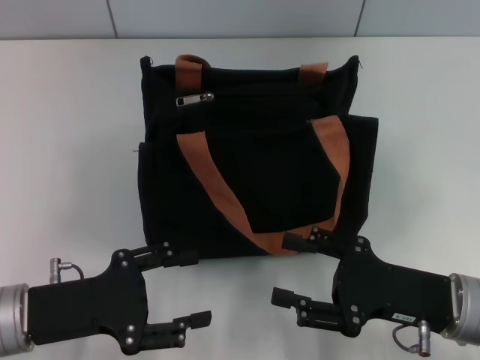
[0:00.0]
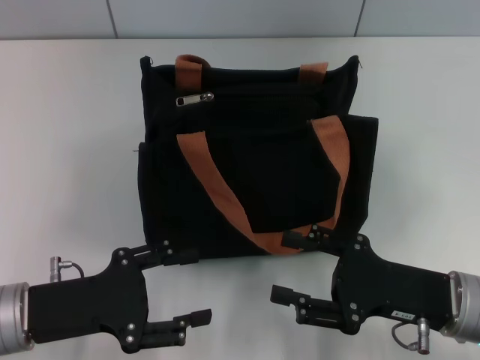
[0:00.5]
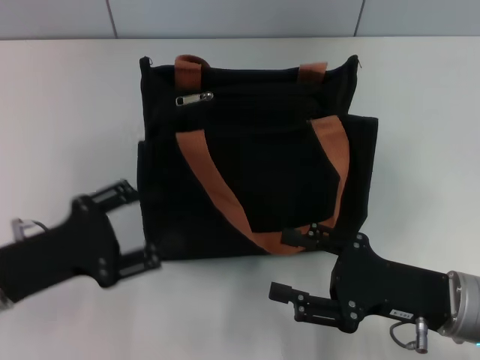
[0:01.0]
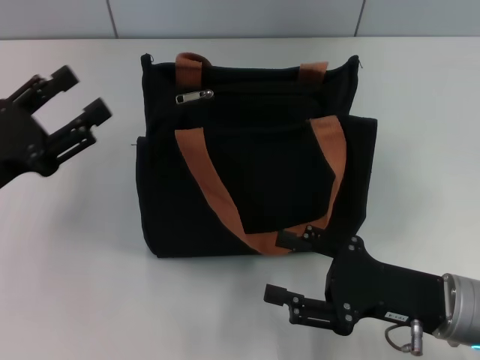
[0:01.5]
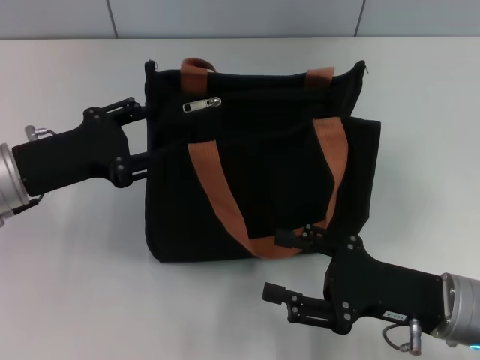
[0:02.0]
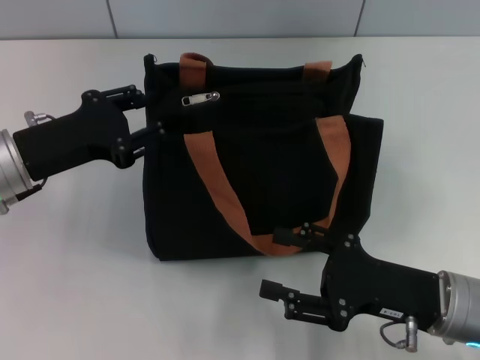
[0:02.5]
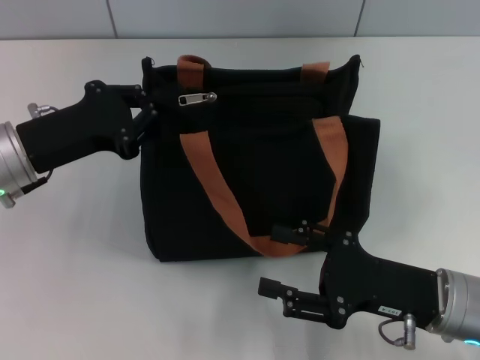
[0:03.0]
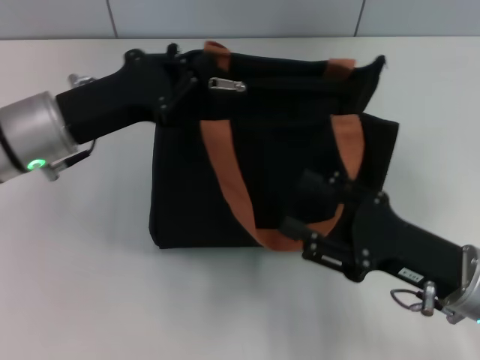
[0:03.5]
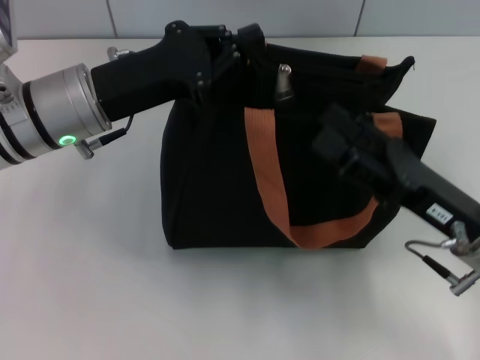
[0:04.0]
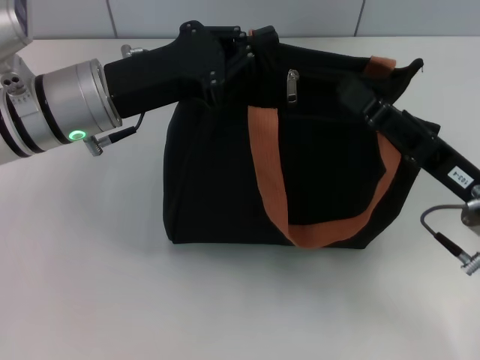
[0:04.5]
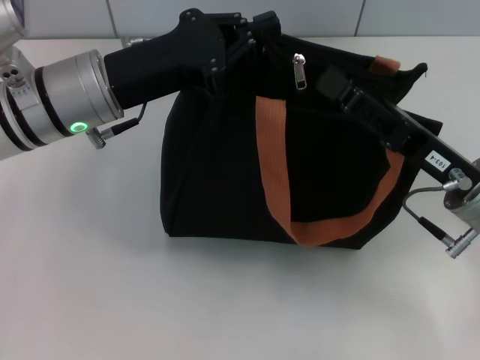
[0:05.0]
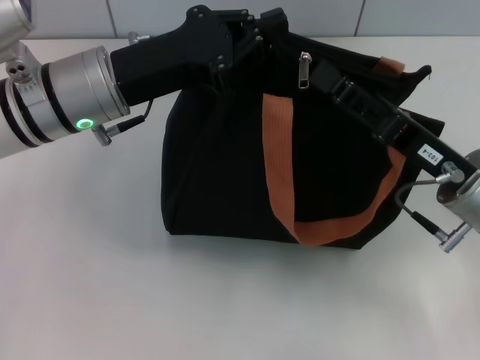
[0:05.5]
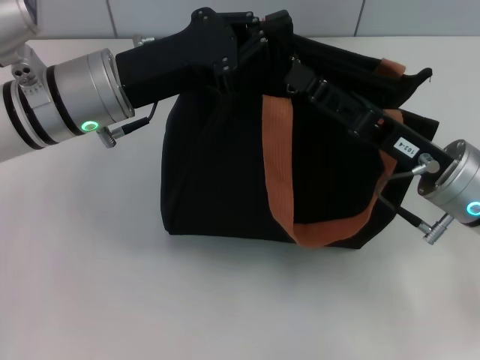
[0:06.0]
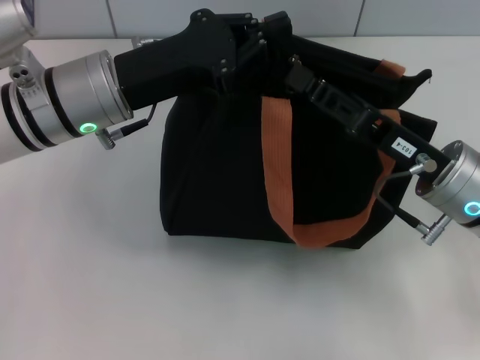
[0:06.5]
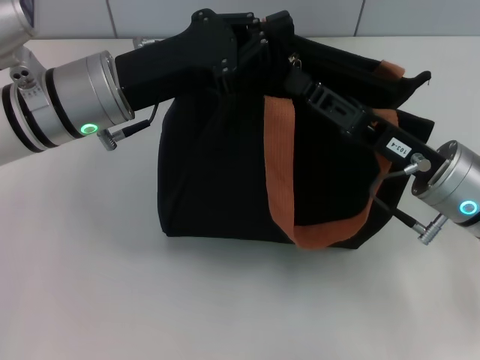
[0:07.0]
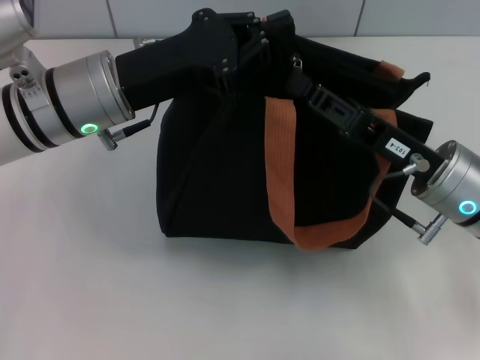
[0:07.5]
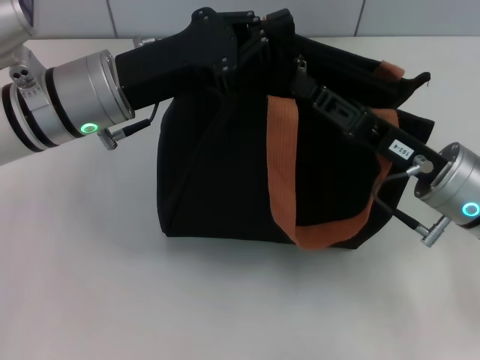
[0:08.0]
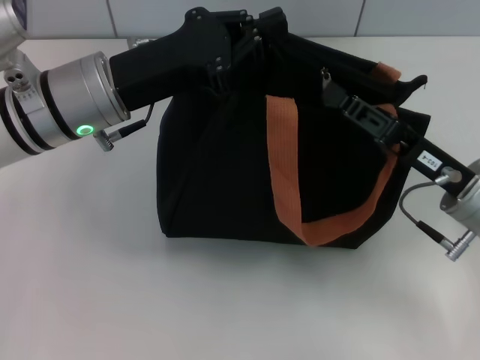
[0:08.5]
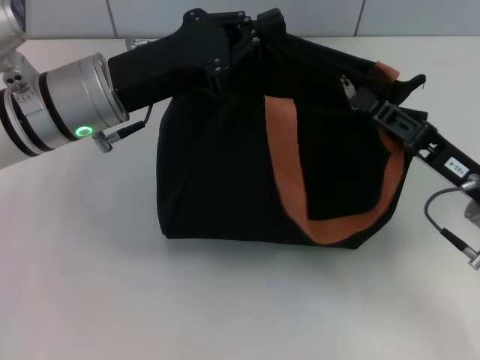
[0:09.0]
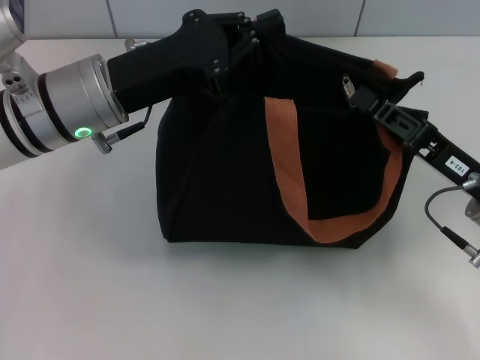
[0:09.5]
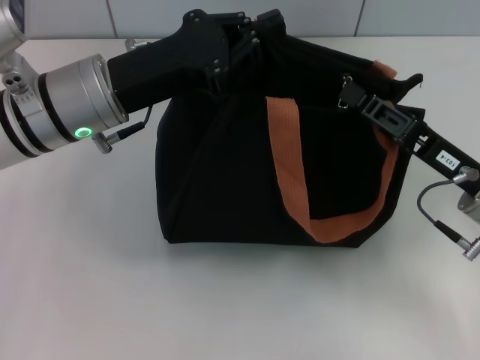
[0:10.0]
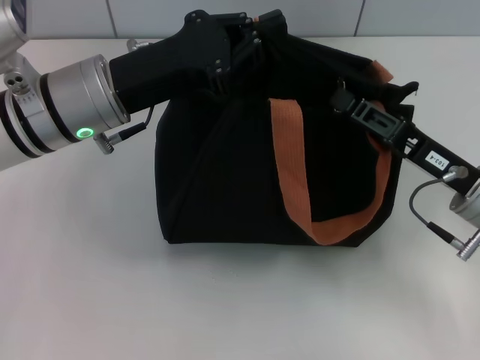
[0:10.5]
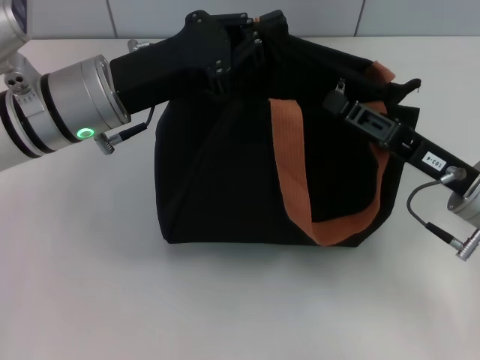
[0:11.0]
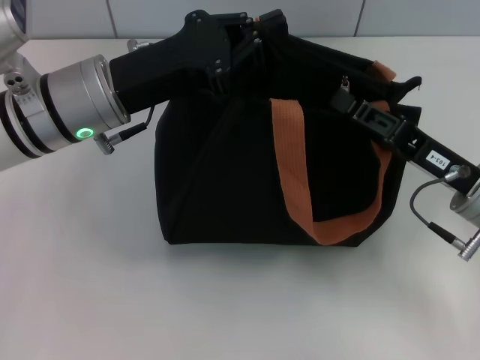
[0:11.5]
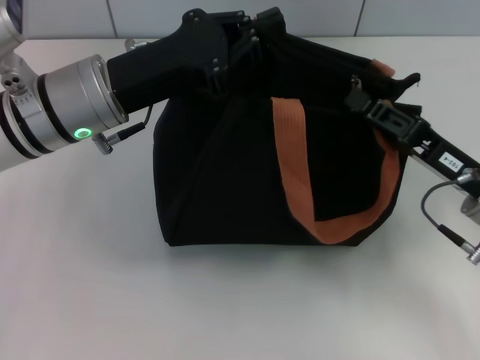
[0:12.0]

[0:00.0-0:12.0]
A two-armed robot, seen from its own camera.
0:00.0 to 0:02.0: The left gripper shifts approximately 10 cm forward.
0:02.0 to 0:04.0: The left gripper travels to the right by some 10 cm, and closes up.
0:04.0 to 0:06.0: The right gripper shifts by approximately 5 cm, and closes up.
0:06.0 to 0:08.0: The right gripper closes up.
0:08.0 to 0:10.0: The grippers move only a little.
0:10.0 to 0:12.0: Both grippers stay put.

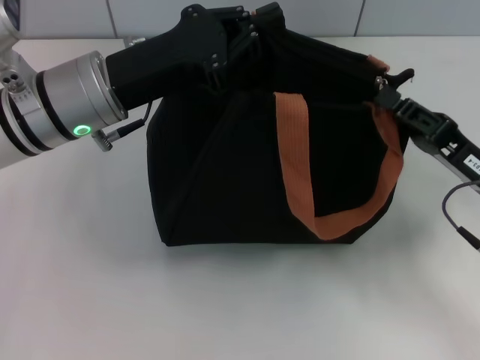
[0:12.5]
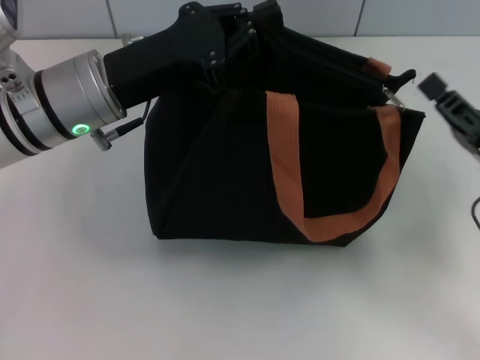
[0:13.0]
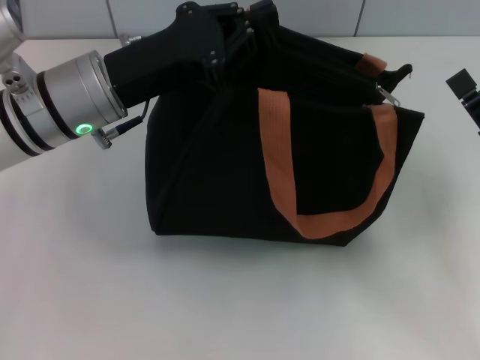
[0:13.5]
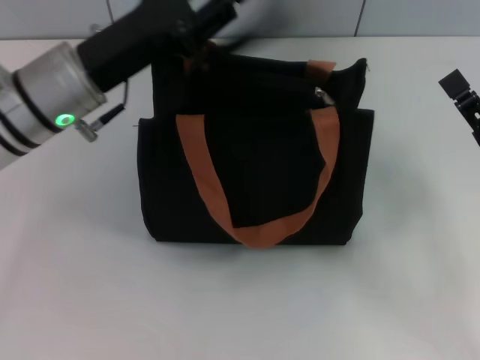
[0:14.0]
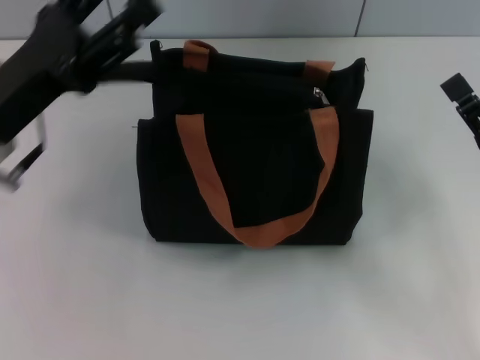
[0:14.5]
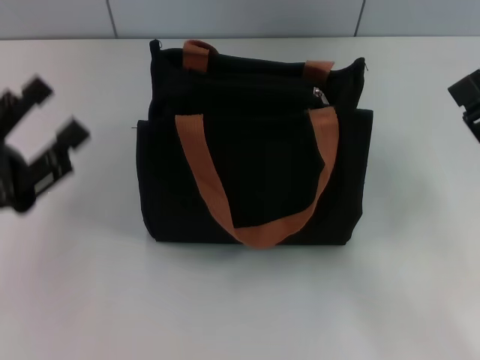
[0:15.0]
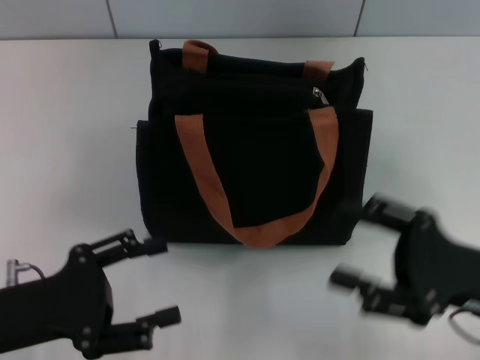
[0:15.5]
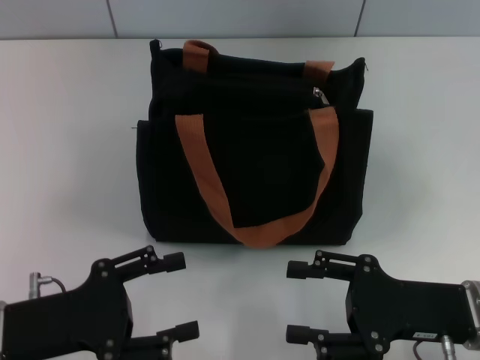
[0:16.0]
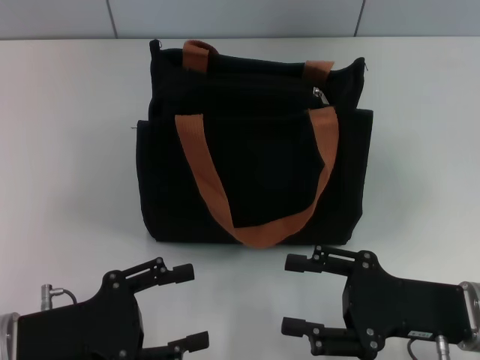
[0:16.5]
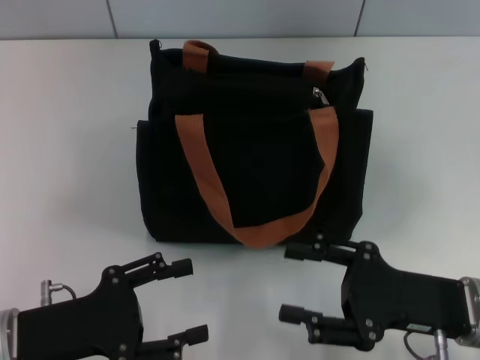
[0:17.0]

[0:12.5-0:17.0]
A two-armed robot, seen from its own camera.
Step, 0:13.5 to 0:14.5: Grab the zipper with your left hand.
0:12.5 to 0:14.5: The left gripper shifts about 10 cm to the left and backward, and opens. The right gripper opens up.
0:14.5 to 0:17.0: The right gripper heads to the left, covering roughly 5 cm, while the left gripper moves backward and downward, approximately 15 cm.

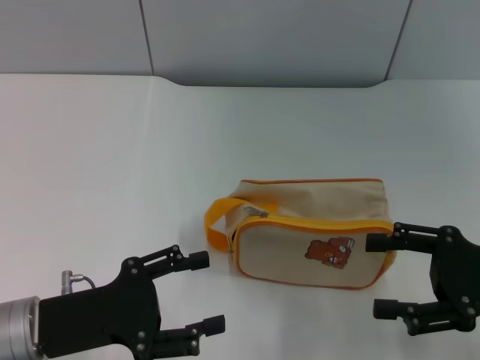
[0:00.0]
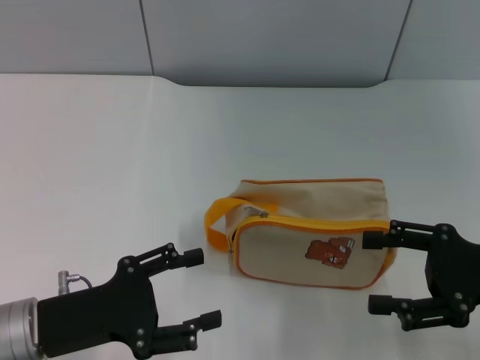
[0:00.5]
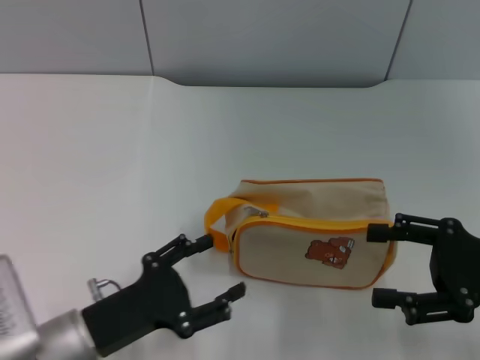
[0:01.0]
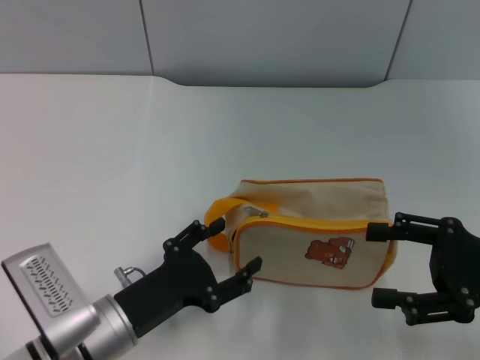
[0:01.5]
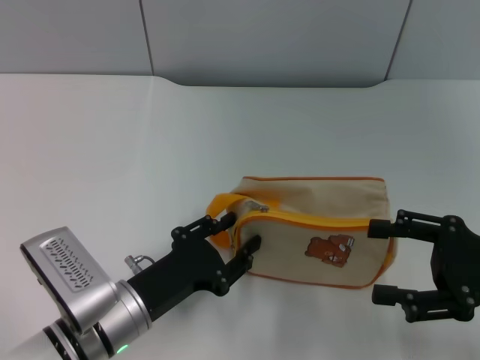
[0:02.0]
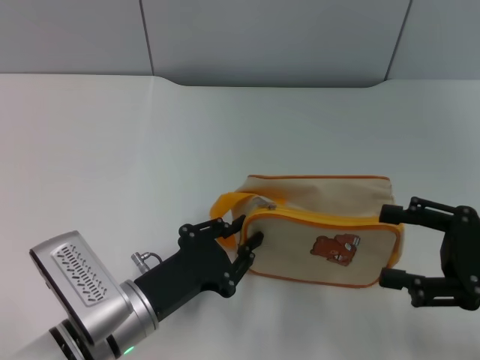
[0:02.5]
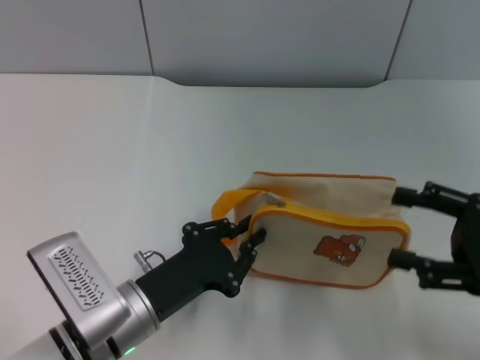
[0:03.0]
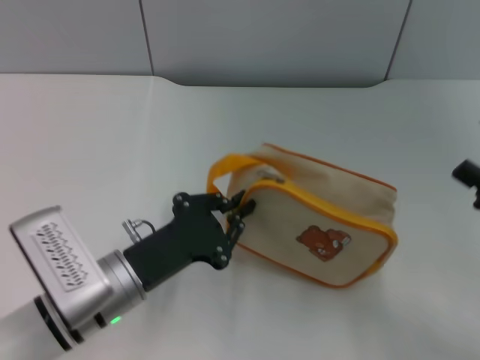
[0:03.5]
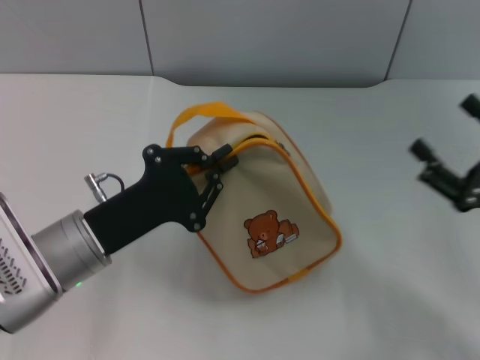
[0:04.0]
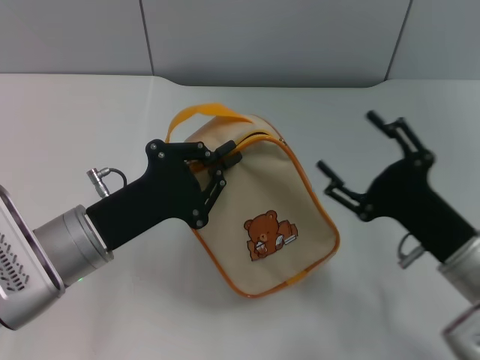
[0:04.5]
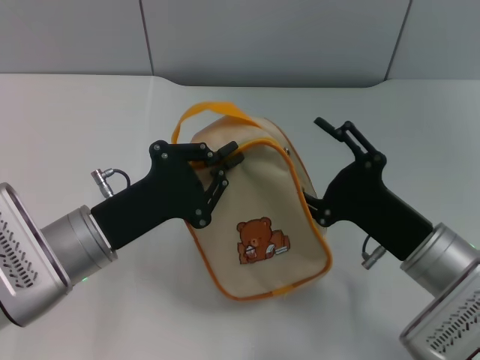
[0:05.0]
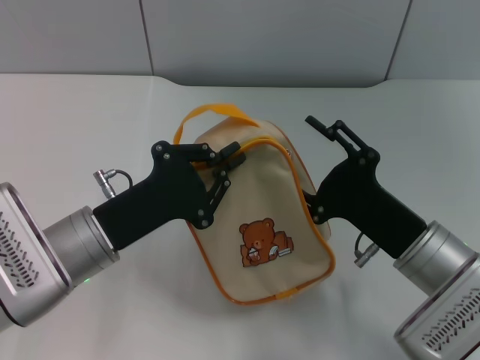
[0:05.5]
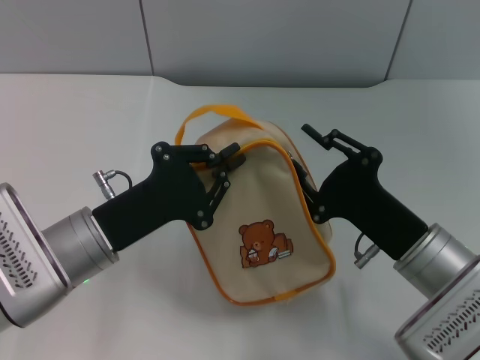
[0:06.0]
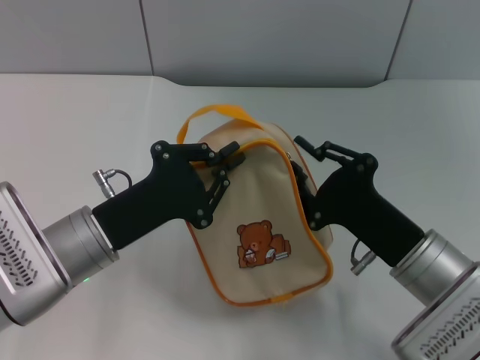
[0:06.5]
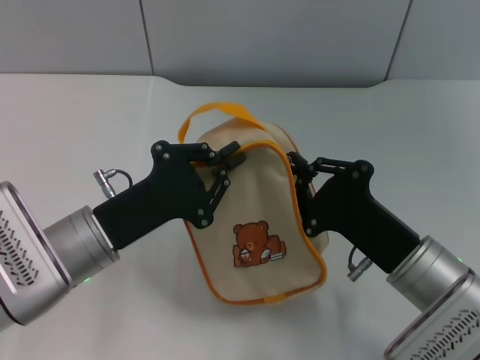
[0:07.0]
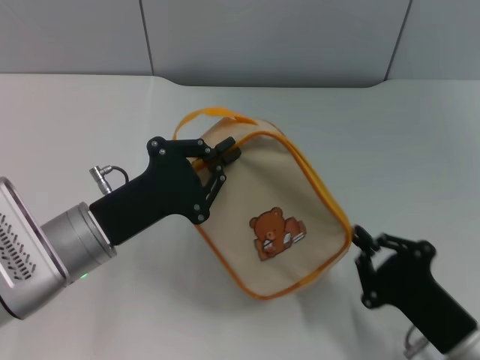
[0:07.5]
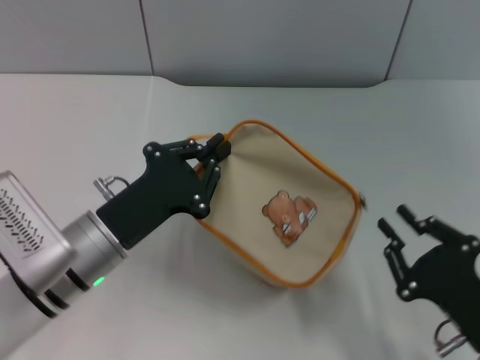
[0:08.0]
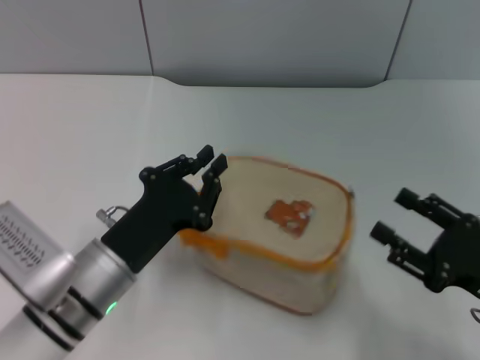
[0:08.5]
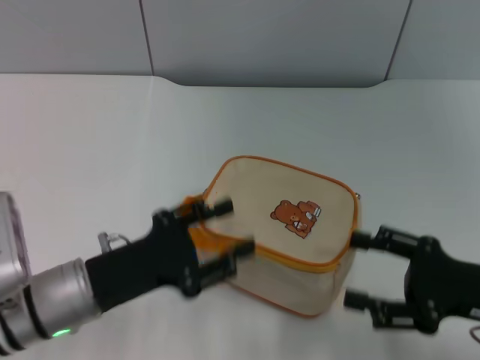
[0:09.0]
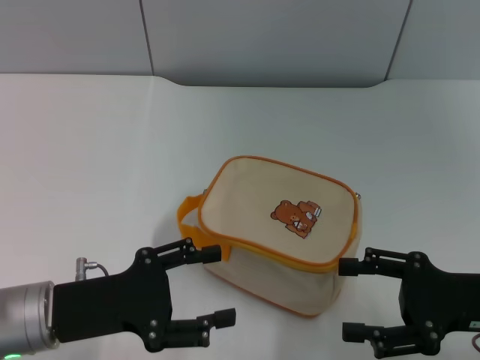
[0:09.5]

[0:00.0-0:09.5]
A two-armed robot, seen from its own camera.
Step, 0:00.0 to 0:04.0: Pick up the bag with left gripper.
Step, 0:04.5 to 0:08.0: Unzip the zipper of bag with right gripper.
0:00.0 to 0:02.0: The left gripper travels to the right and downward by about 10 cm.
0:02.0 to 0:04.0: The left gripper heads upward, covering about 5 cm, and closes up.
0:04.0 to 0:05.5: The right gripper heads to the left, covering approximately 10 cm.
0:05.5 to 0:07.5: The right gripper moves backward, some 10 cm, and closes up.
0:07.5 to 0:09.5: The left gripper changes place by approximately 5 cm, and opens. The right gripper travels upward, forward and to the right by approximately 10 cm, and opens its fingers.
